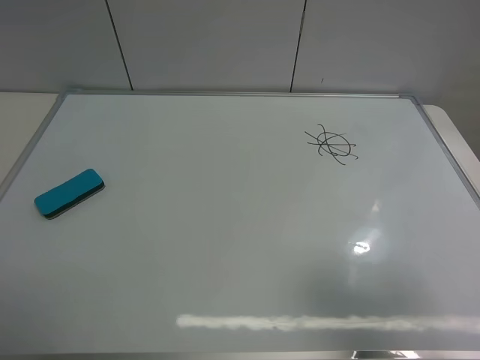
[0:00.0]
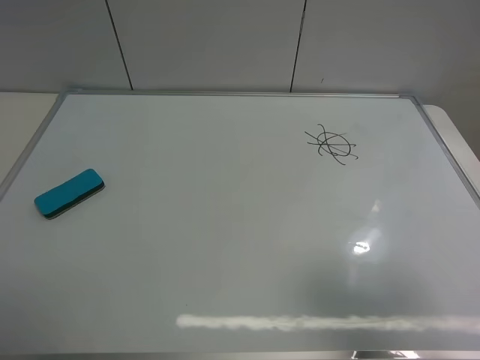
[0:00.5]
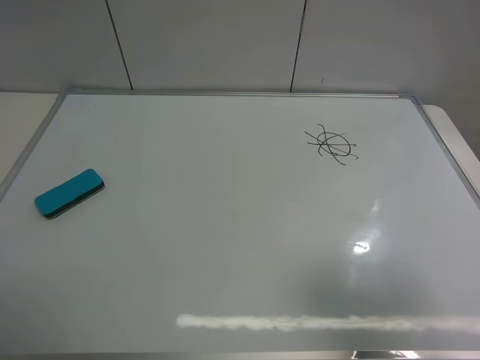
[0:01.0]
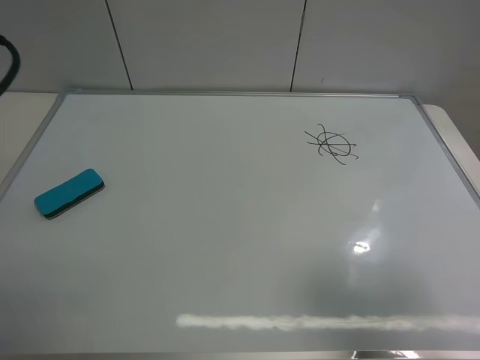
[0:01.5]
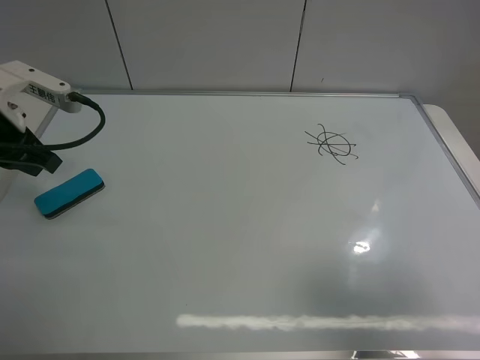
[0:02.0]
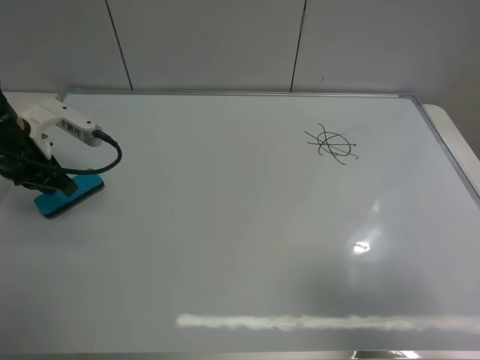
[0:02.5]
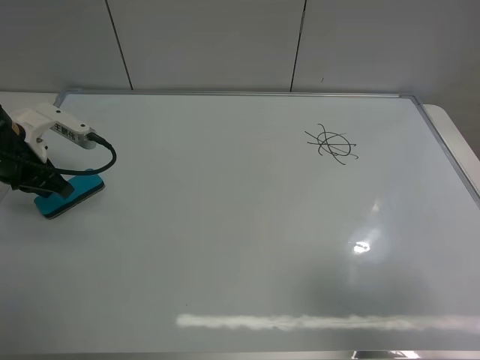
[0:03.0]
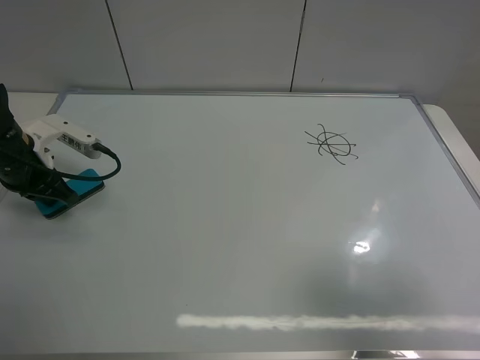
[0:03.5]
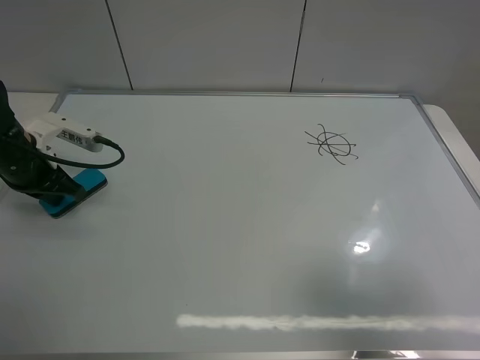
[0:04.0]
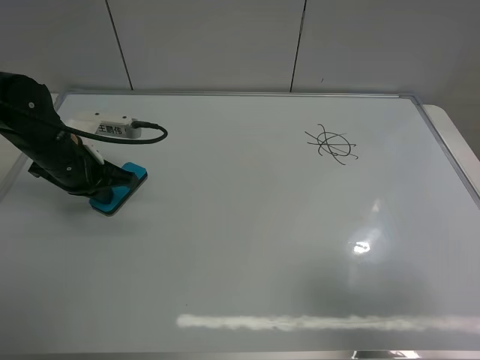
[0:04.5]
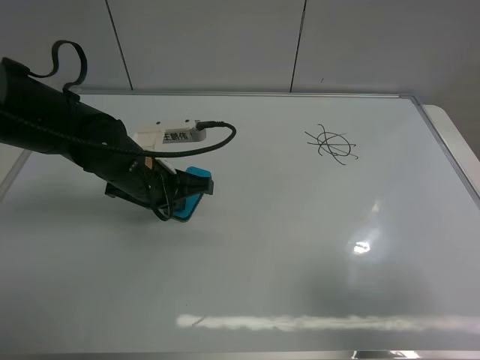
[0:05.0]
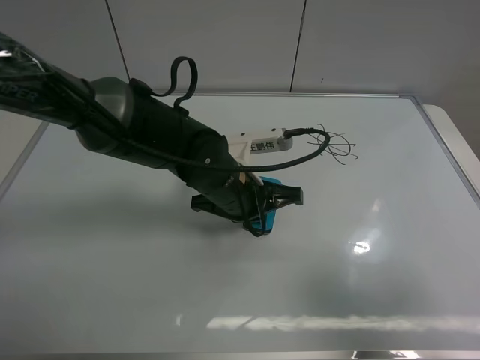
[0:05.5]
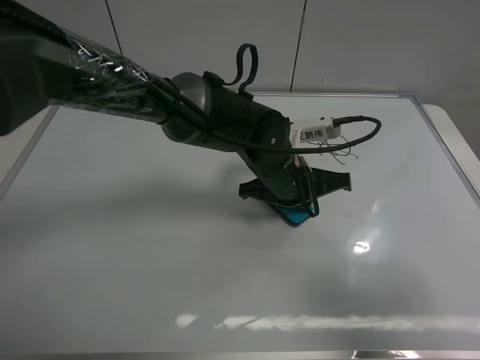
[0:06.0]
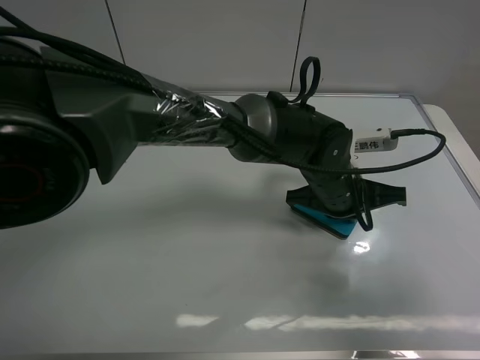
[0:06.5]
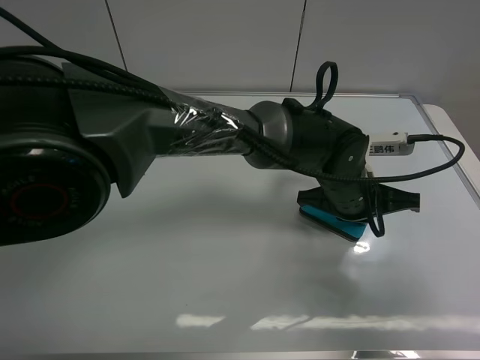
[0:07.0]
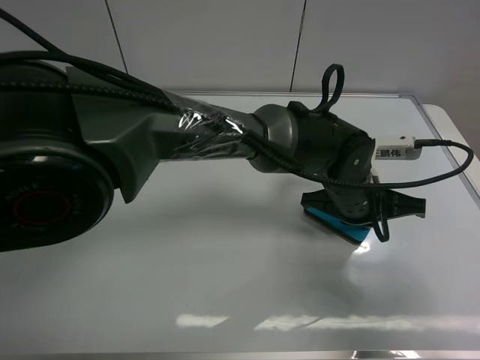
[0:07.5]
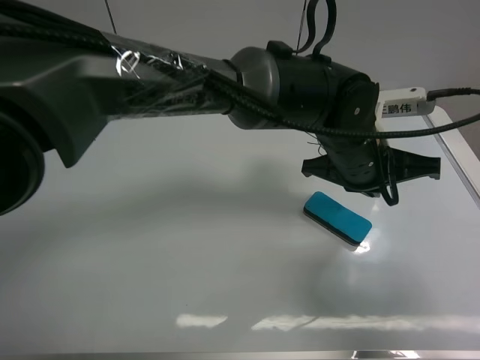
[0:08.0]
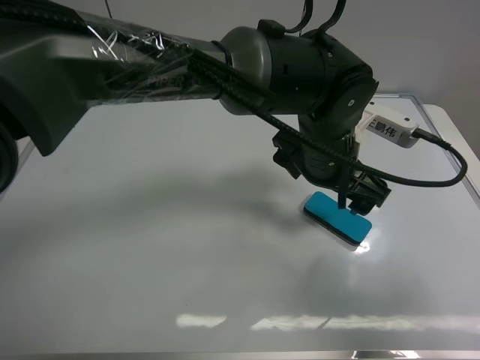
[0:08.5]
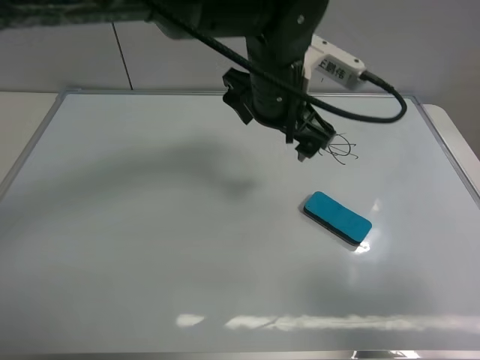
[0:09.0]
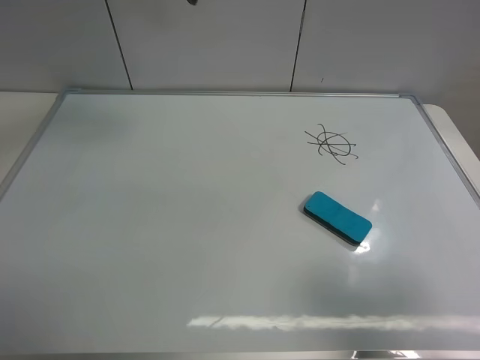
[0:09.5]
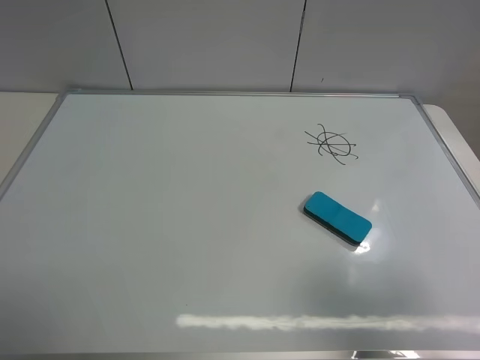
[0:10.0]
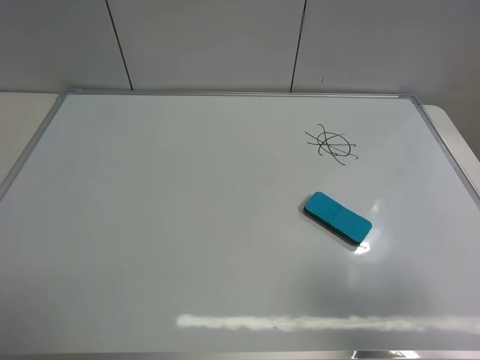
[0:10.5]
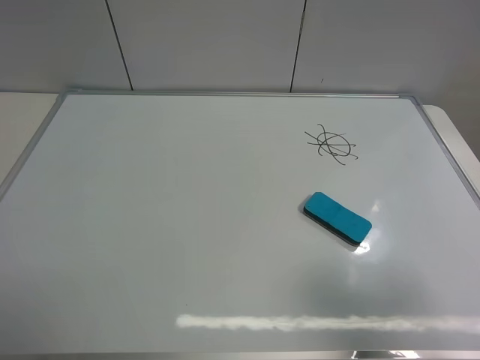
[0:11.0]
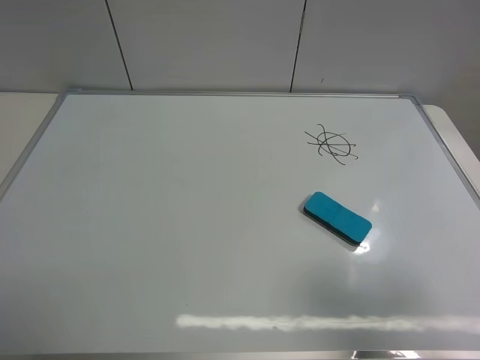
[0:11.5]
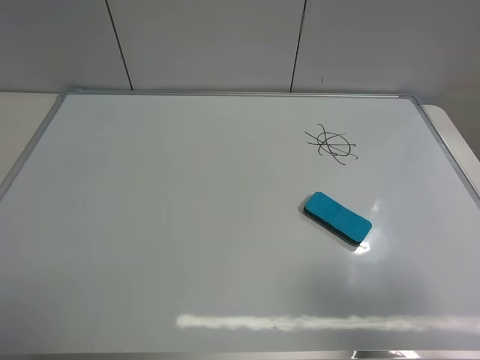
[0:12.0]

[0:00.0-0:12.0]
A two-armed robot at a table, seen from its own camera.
Task of the whole recording: use the left gripper to place the eraser in the right, use the right gripper to pick up the eraser, wipe the notes on the whiteboard clean, and then put it down.
Step, 0:00.0 to 0:07.5: Move the board eraser to the right of the whiteboard with left gripper.
0:00.0 to 0:02.0: The left gripper goes about 25 cm forward, and closes.
0:02.0 to 0:04.0: The left gripper goes approximately 10 cm downward.
0:04.0 to 0:06.0: The left gripper travels to the right by about 35 cm.
0:06.0 to 0:08.0: The left gripper shifts about 10 cm to the right and upward.
0:08.0 to 0:10.0: The left gripper shifts approximately 60 cm to the left and upward, and opens.

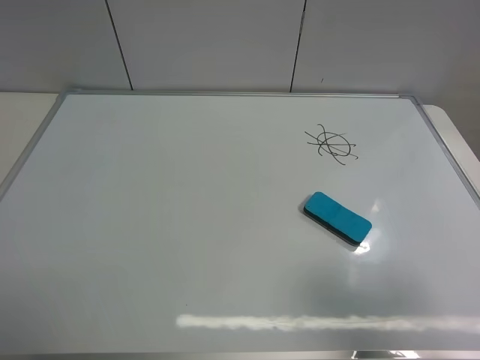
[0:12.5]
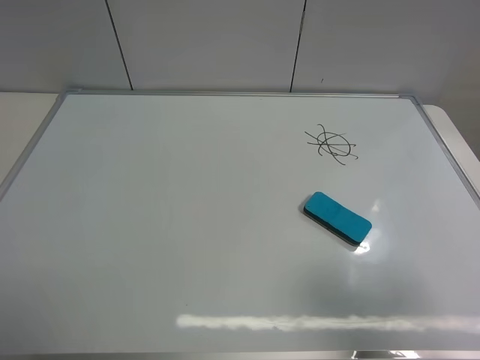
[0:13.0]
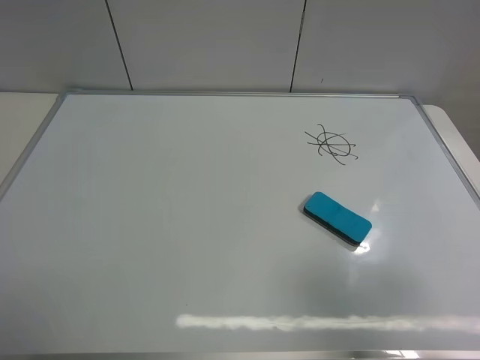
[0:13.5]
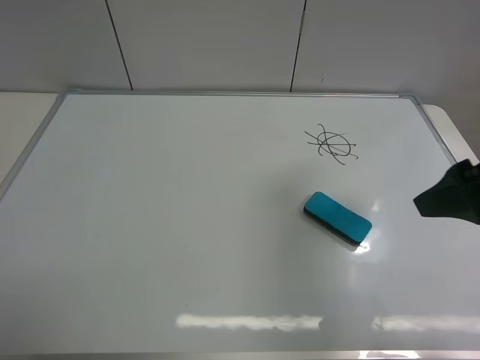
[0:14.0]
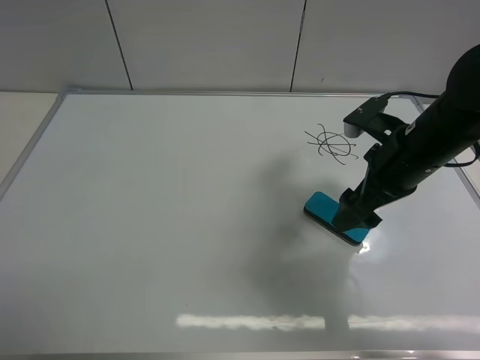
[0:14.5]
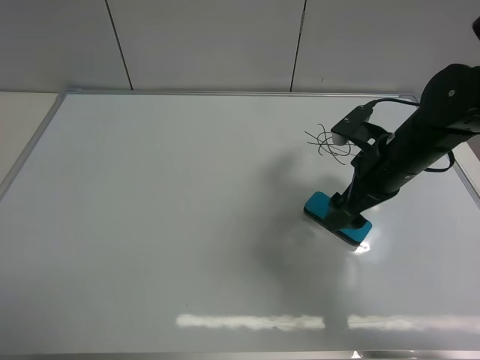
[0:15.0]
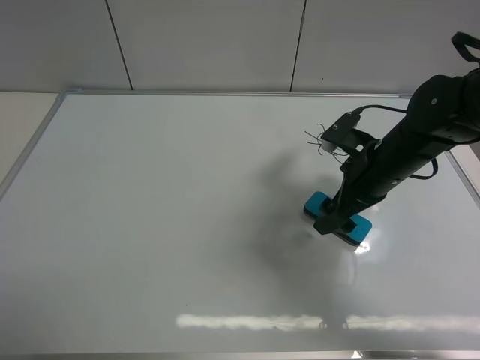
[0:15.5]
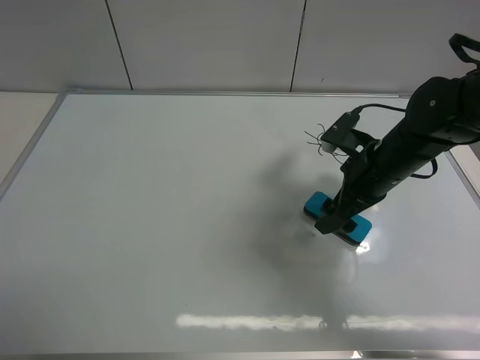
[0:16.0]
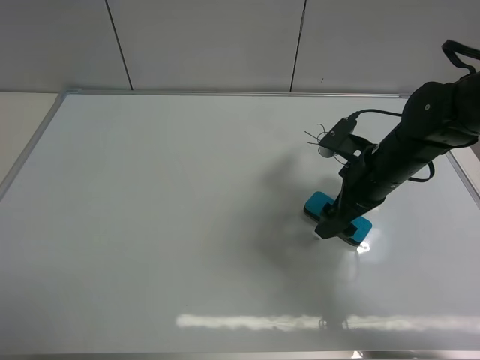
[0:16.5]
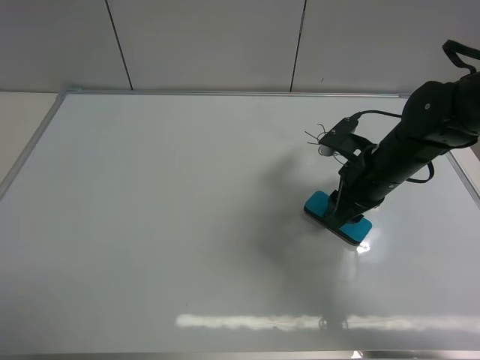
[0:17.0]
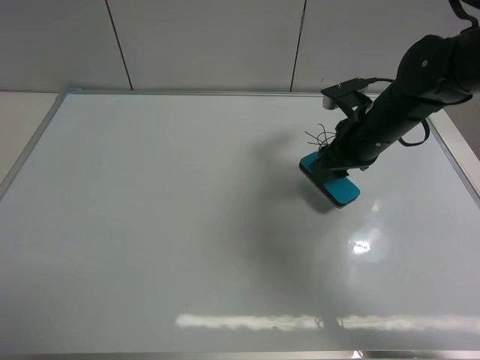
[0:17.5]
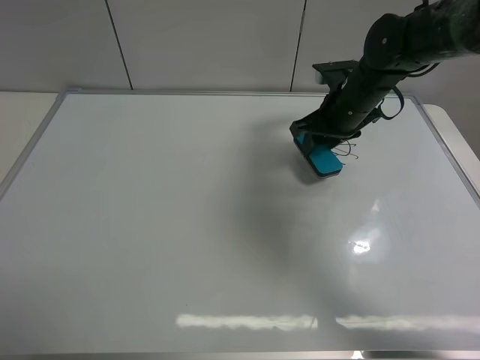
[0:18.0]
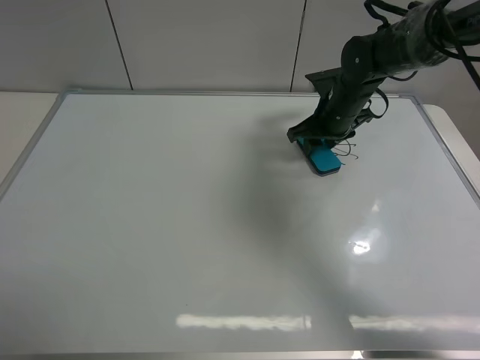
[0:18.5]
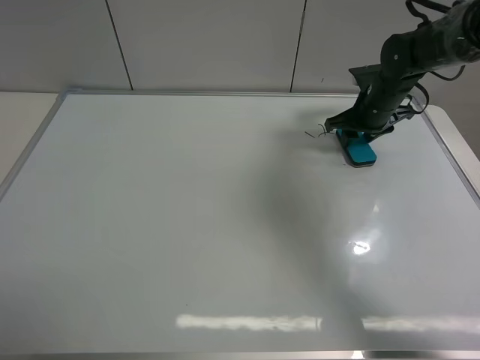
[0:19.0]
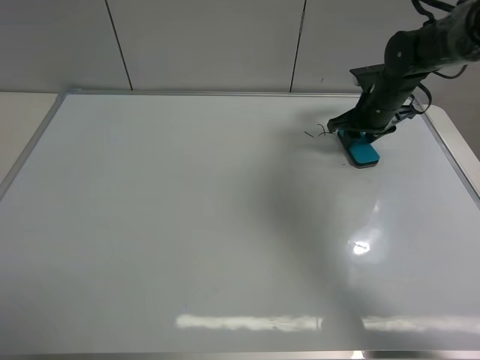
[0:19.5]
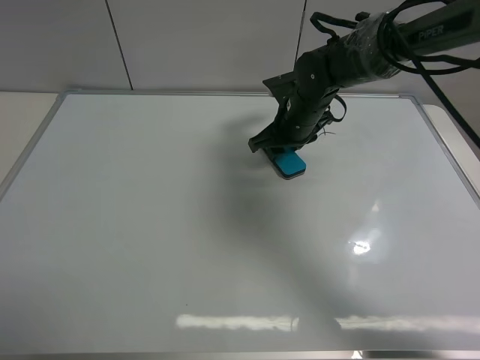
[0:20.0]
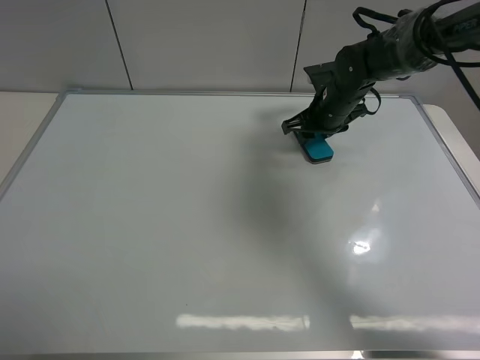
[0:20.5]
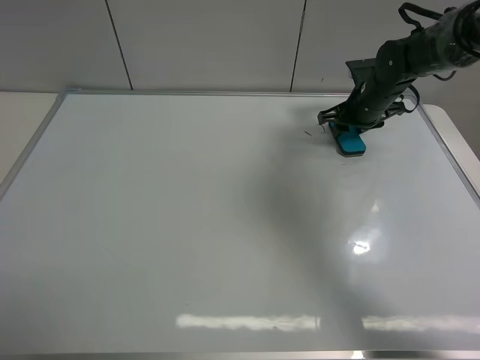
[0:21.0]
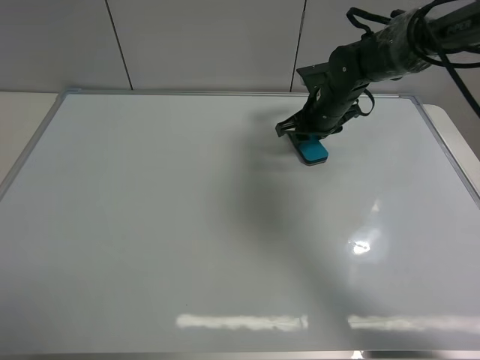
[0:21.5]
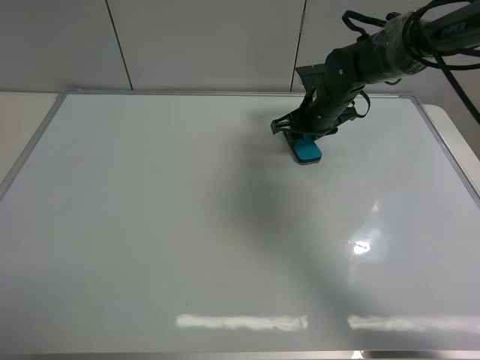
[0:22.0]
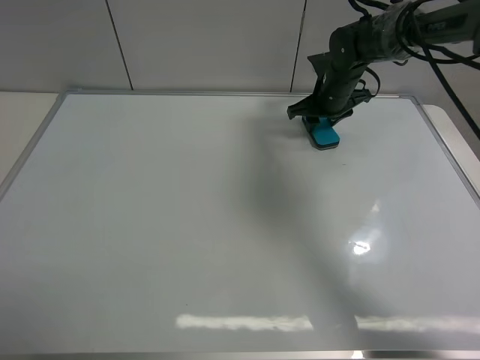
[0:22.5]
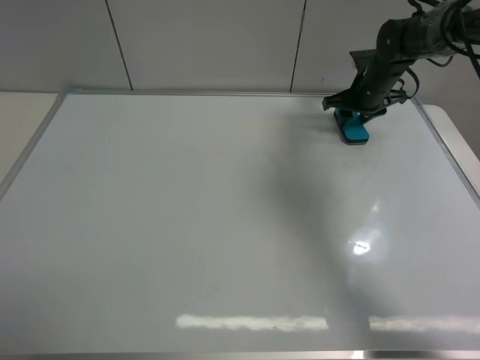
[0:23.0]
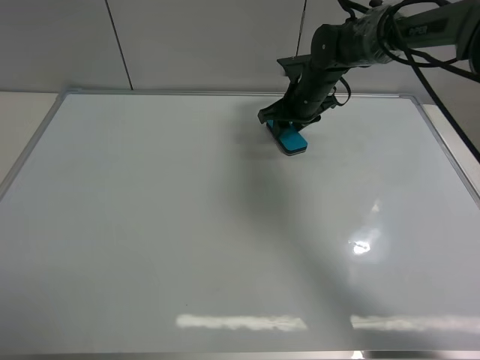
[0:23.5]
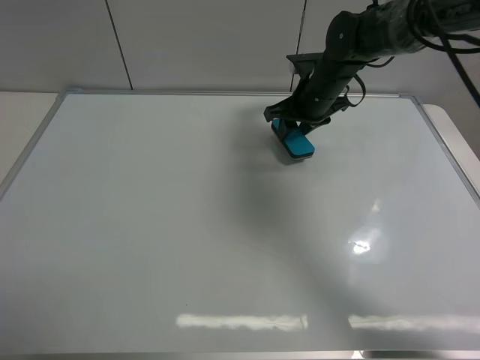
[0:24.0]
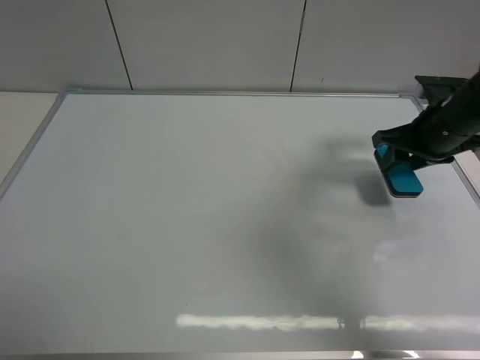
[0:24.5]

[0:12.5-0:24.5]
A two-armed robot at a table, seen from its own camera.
Task of the whole recording: use the left gripper to place the eraser in the right, use the right gripper to pick up the eraser, wipe the notes on the whiteboard clean, and then put it down.
Step, 0:12.5 to 0:17.5: Pick up the board eraser with right gripper.
Step, 0:18.0 to 0:23.5: Wipe off the writing on the board with right gripper.
0:12.5 to 0:14.5: The right gripper goes about 25 cm forward.
0:14.5 to 0:16.5: The right gripper travels downward by about 5 cm.
0:16.5 to 0:18.5: The right gripper heads forward, covering roughly 15 cm, and closes its fingers.
0:18.5 to 0:20.5: The right gripper goes left and right, roughly 15 cm each way, reversing 2 times.
0:20.5 to 0:22.5: The right gripper goes left and right, some 10 cm each way, reversing 2 times.
0:22.5 to 0:24.5: The right gripper goes left and right, roughly 20 cm each way, reversing 2 times.

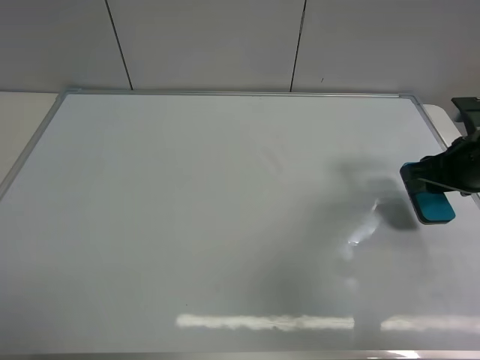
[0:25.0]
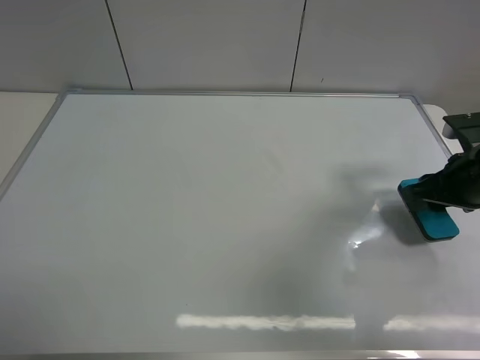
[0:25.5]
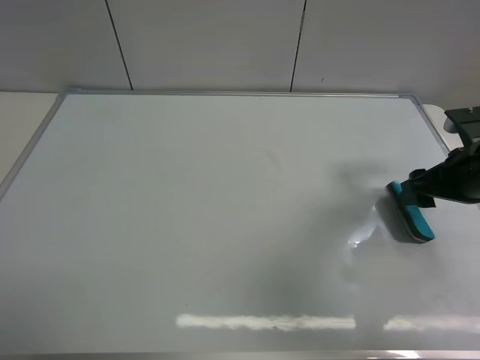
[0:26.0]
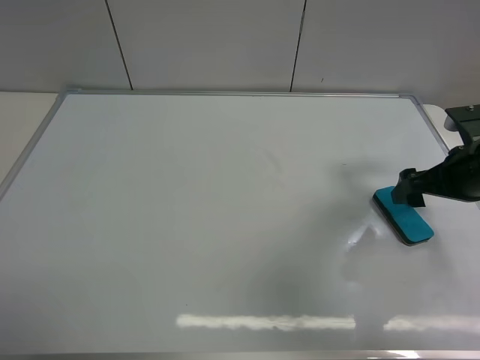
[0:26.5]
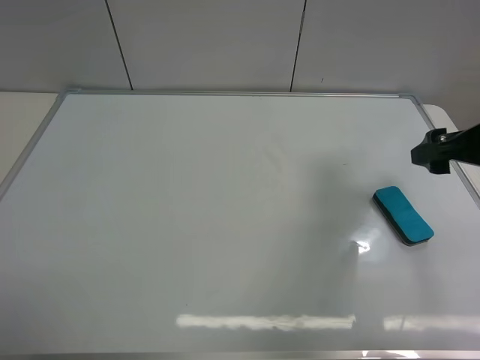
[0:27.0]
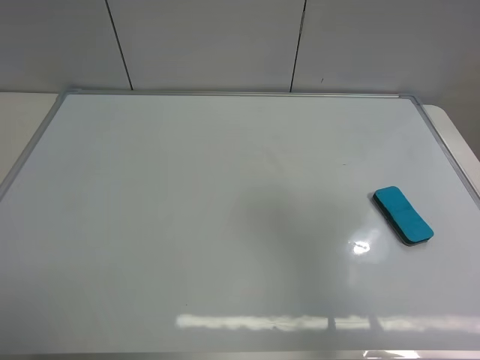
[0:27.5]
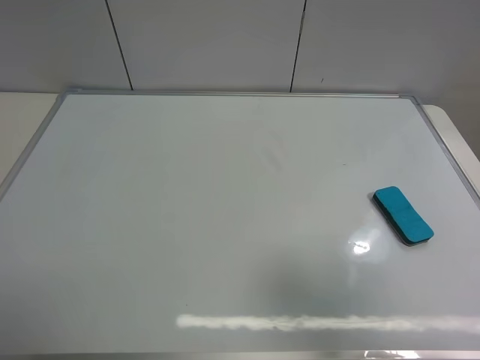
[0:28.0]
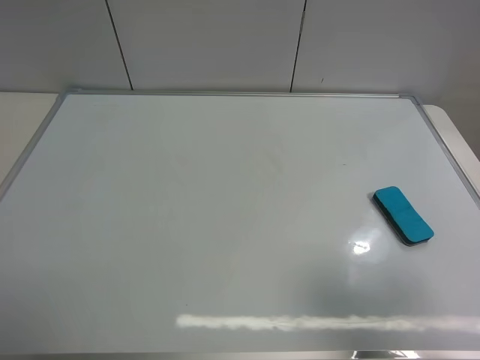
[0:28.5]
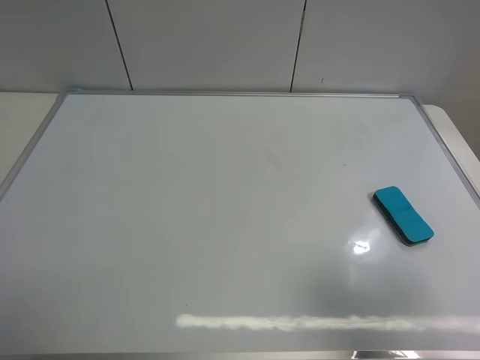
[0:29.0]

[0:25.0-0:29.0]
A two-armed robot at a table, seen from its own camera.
Task of the whole recording: use the left gripper to place the eraser in the right, use the right gripper to pick up the eraser, wipe the notes on the whiteboard clean, and then put it down.
0:25.0 to 0:27.0: The right gripper shifts roughly 5 cm upward, and opens up.
0:27.0 to 0:29.0: The right gripper travels backward by roughly 20 cm.
